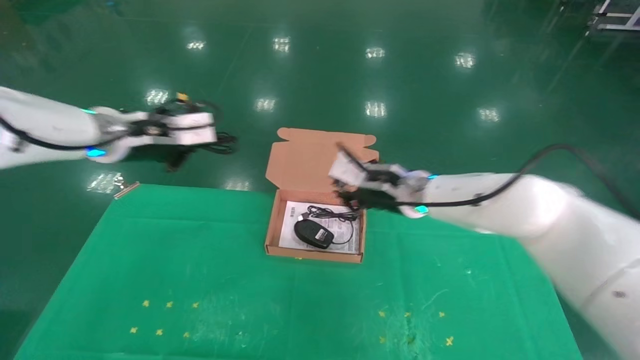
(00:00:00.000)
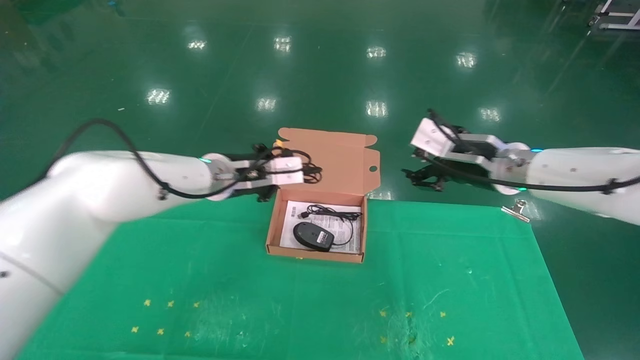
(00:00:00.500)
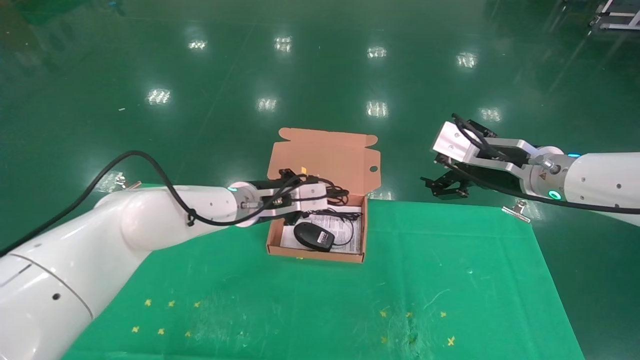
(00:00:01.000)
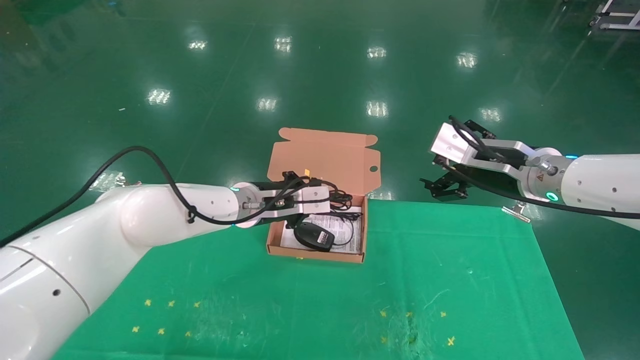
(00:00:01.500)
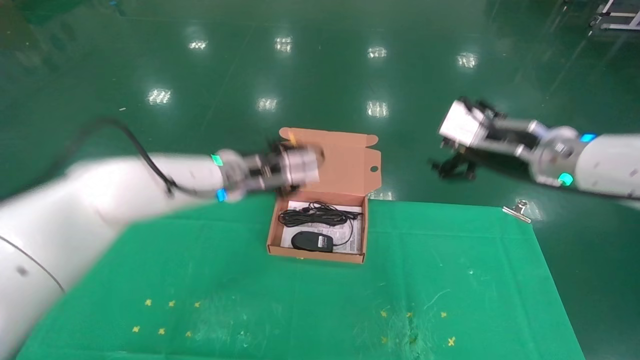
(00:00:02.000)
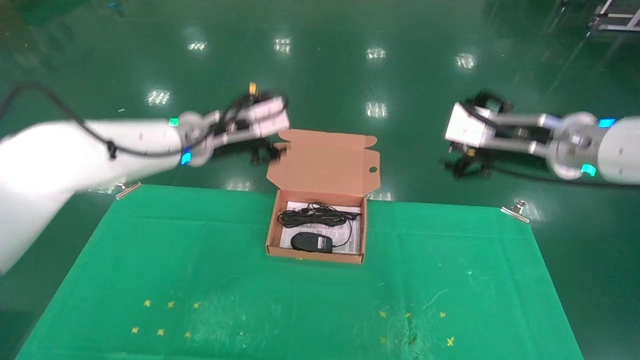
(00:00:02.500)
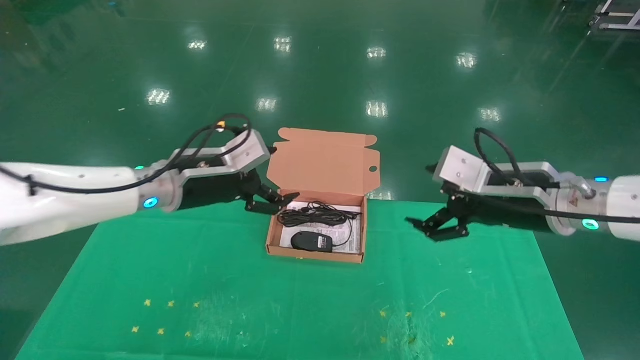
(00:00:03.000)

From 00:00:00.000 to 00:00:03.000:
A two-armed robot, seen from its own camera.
Task of the whole recording: grasp data cable left put into box grasp mouse right put into box.
From 00:00:00.000 to 00:00:01.500: The right gripper is displaced to the right and backward by about 15 cm, and opens, while the left gripper is displaced to the right and downward by some 20 cm.
From 00:00:01.500 to 00:00:03.000: The left gripper travels to the left and backward by roughly 10 cm, and opens up. The right gripper goes about 5 cm backward.

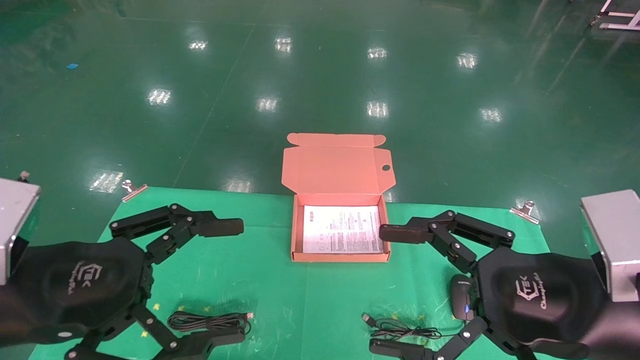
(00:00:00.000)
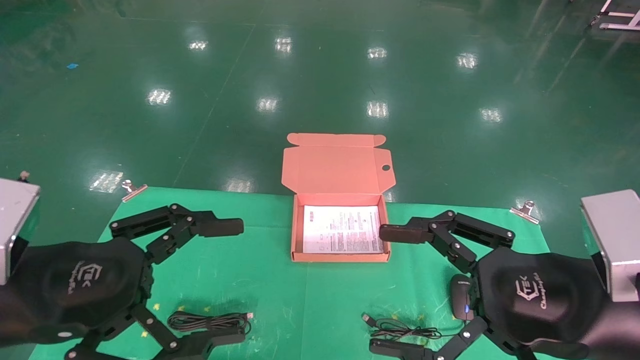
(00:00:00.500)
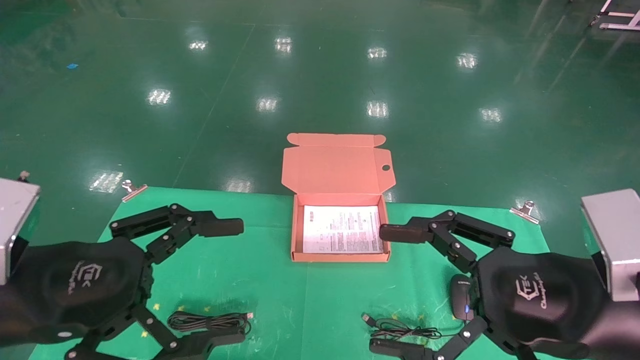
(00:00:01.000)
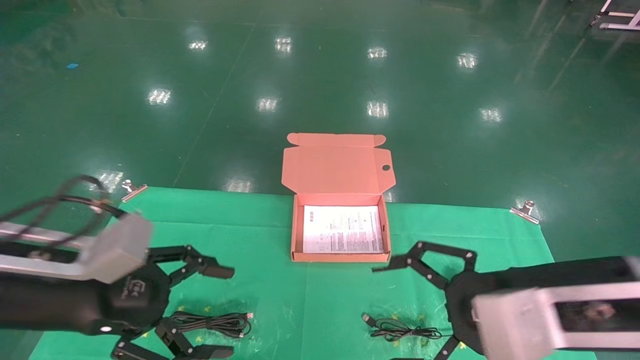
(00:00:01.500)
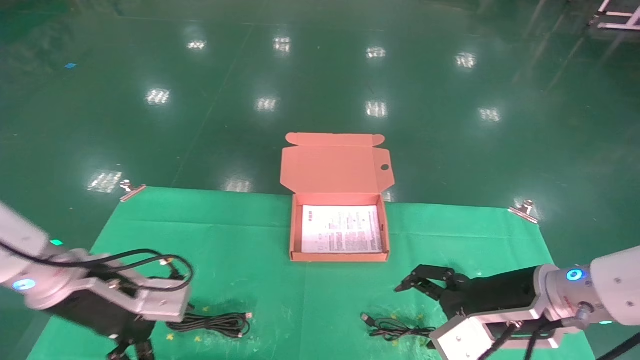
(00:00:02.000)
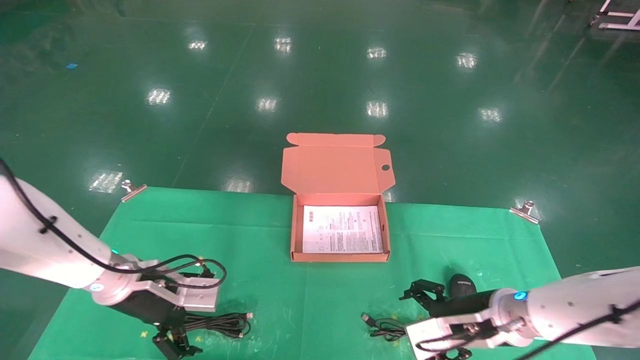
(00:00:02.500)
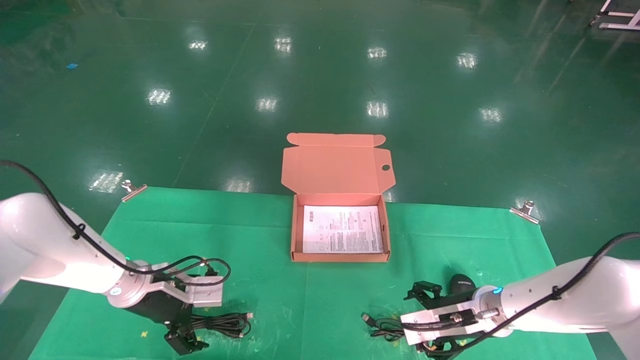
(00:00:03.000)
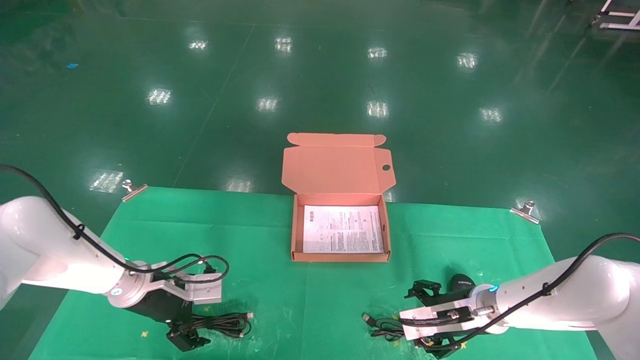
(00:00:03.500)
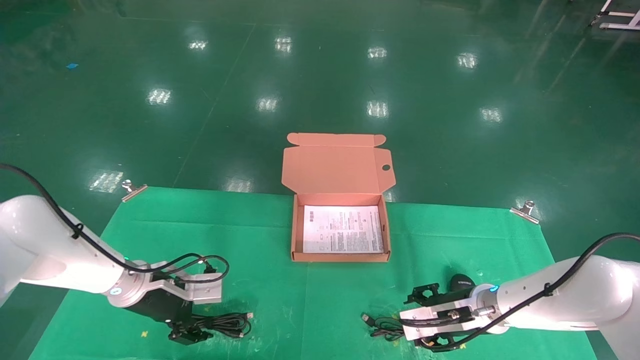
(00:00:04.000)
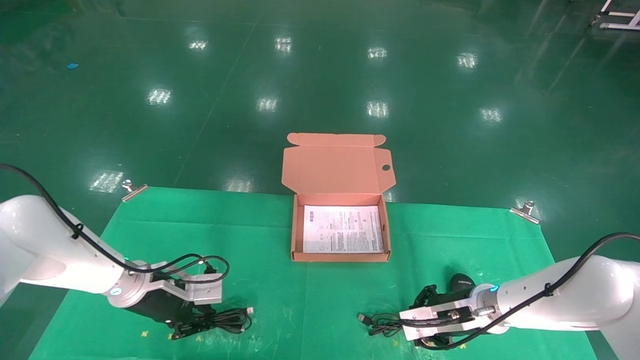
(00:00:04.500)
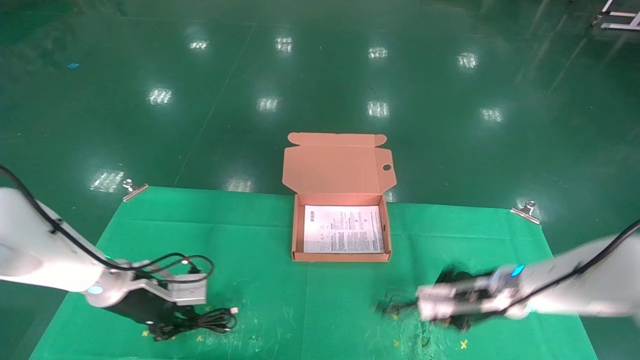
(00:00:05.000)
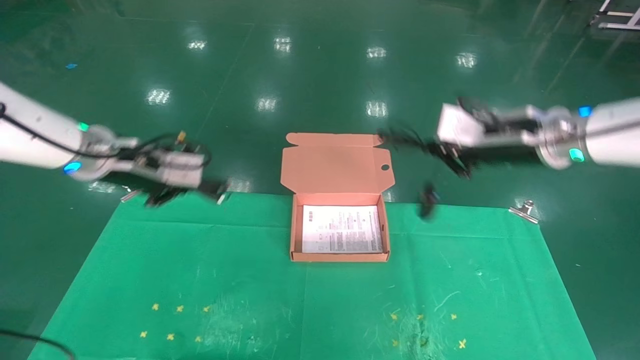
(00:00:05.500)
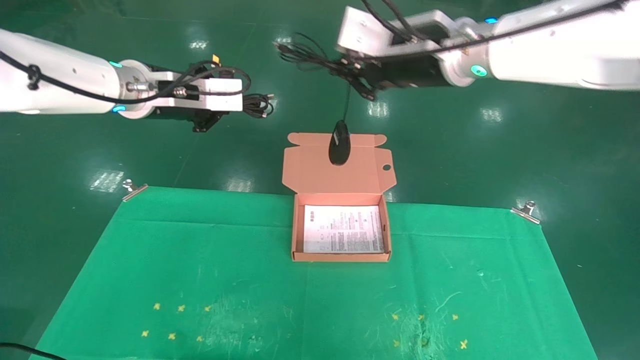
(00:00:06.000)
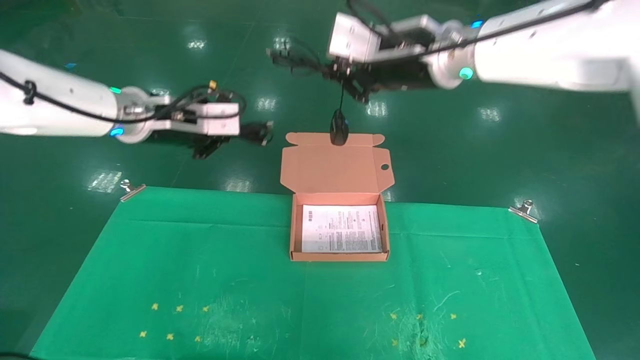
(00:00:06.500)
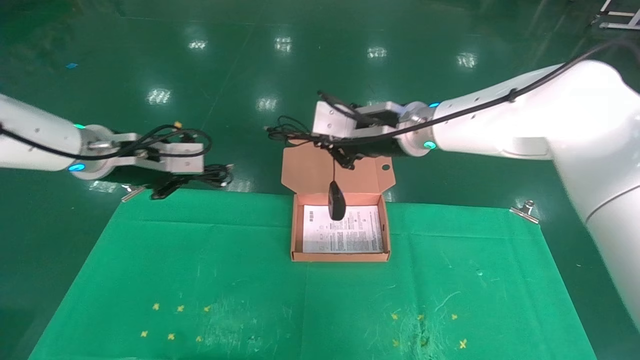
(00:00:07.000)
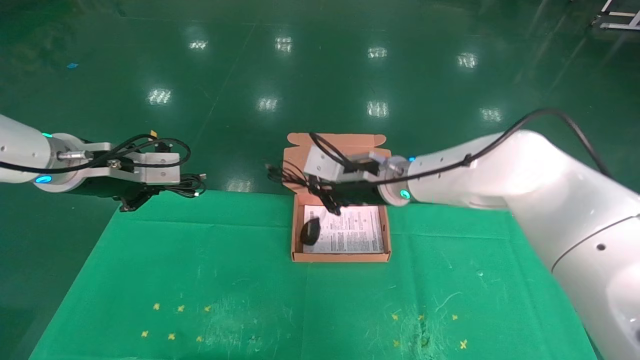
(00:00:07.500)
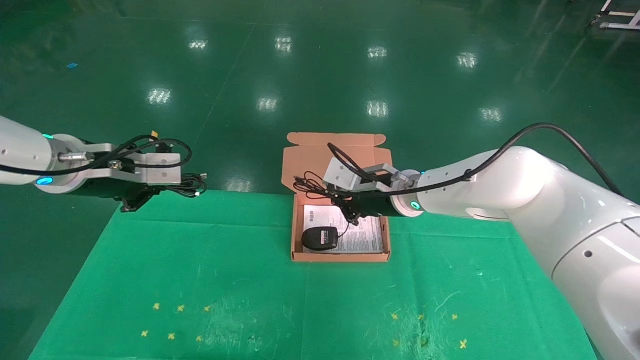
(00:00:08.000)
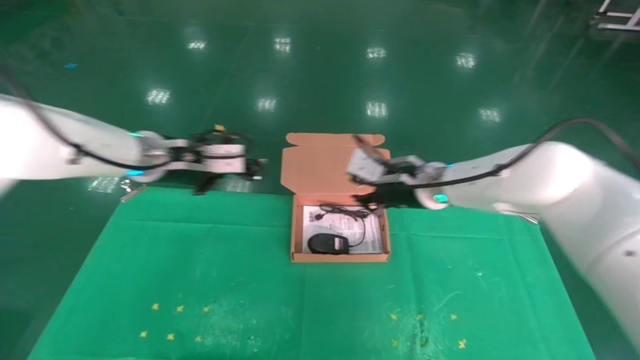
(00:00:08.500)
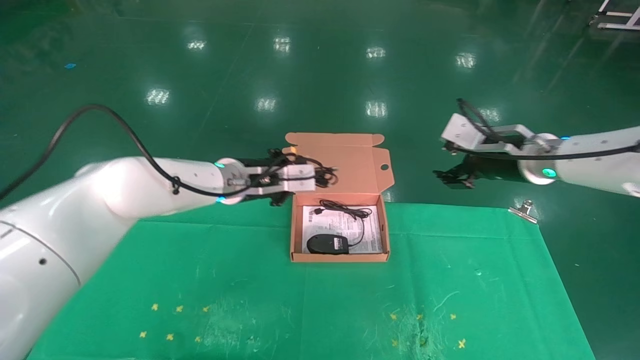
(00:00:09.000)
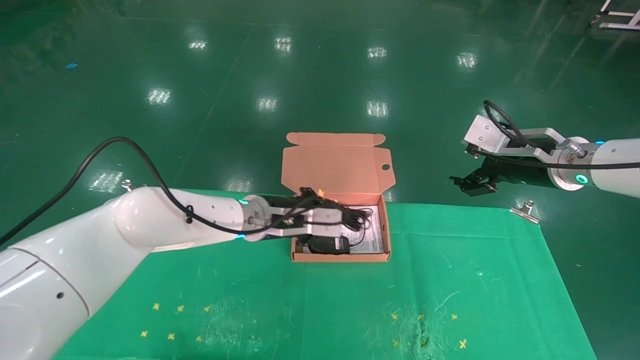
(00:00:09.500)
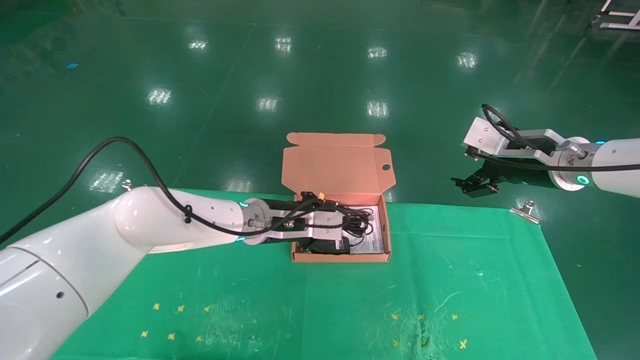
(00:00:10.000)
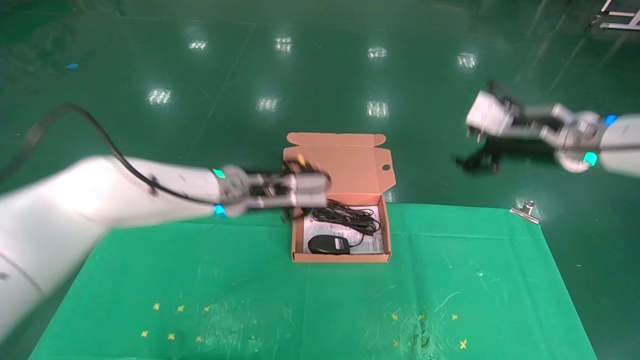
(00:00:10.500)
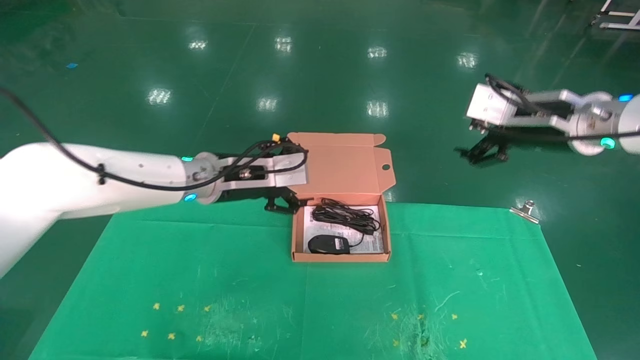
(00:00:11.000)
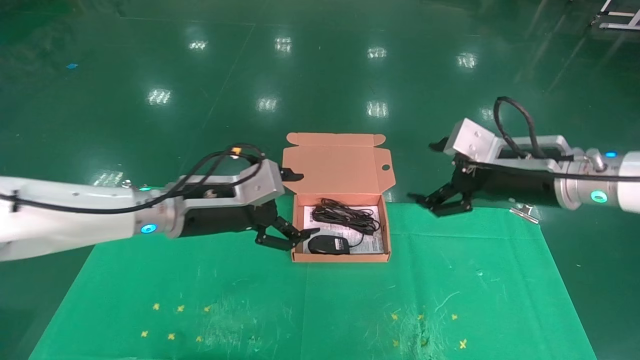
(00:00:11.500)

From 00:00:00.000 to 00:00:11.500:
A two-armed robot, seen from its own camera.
Task of the whole recording: grasp data cable left put into box grasp mouse right put into box.
Step, from 00:00:01.000 to 00:00:04.500: Grab and pick up both the mouse and power cord from the accessory packaging area at the same time.
Step, from 00:00:05.000 to 00:00:10.500: Place the mouse and power cord into the box.
From 00:00:00.000 to 00:00:02.000: The two grippers go about 15 cm forward and downward.
From 00:00:02.000 to 00:00:04.000: Both grippers move forward and downward, approximately 15 cm.
From 00:00:04.000 to 00:00:06.000: The two grippers go approximately 30 cm upward. The left gripper closes its fingers. Meanwhile the right gripper closes its fingers.
From 00:00:06.000 to 00:00:07.500: The left gripper shifts roughly 10 cm to the left and downward; the right gripper shifts about 15 cm downward.
From 00:00:07.500 to 00:00:09.500: The right gripper shifts roughly 25 cm to the right, and opens; the left gripper travels to the right and downward by approximately 25 cm.
From 00:00:09.500 to 00:00:11.500: The left gripper heads to the left and backward, covering approximately 10 cm, and opens its fingers; the right gripper shifts roughly 5 cm backward.
